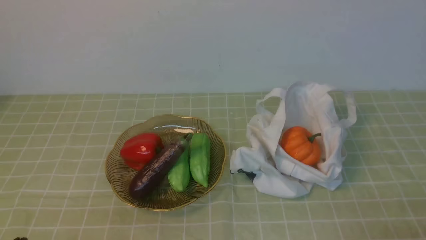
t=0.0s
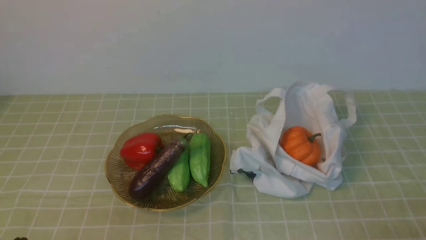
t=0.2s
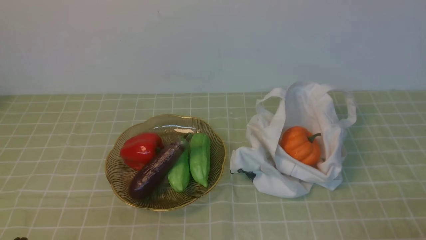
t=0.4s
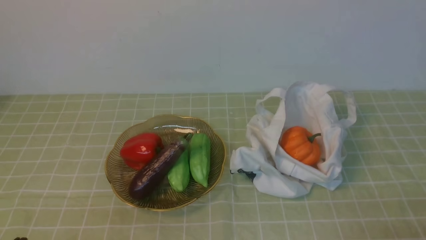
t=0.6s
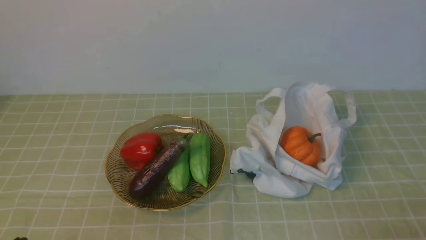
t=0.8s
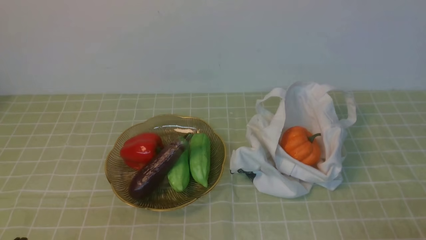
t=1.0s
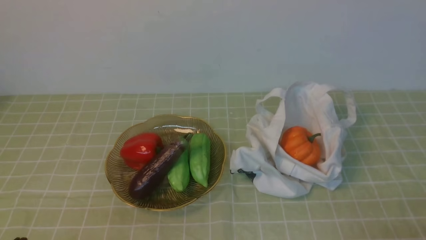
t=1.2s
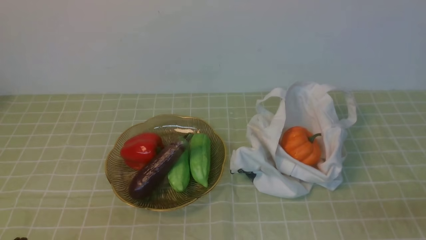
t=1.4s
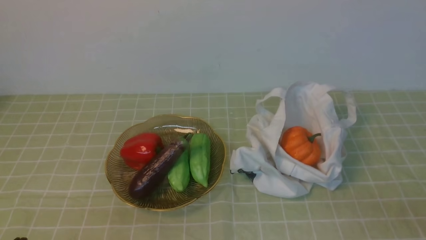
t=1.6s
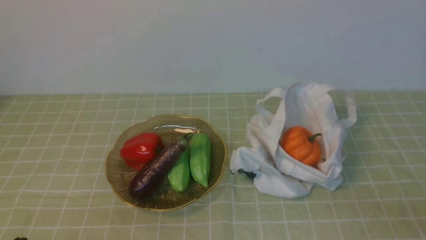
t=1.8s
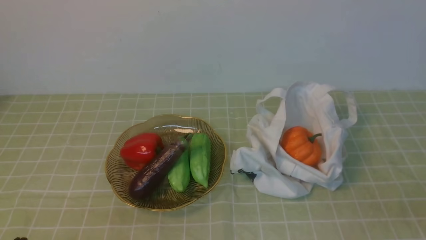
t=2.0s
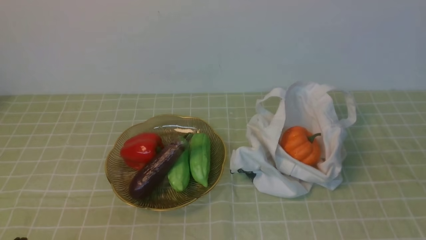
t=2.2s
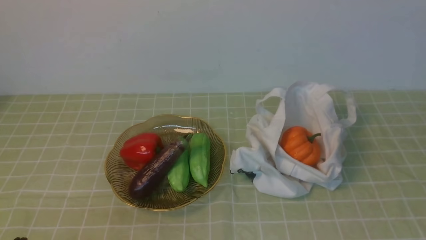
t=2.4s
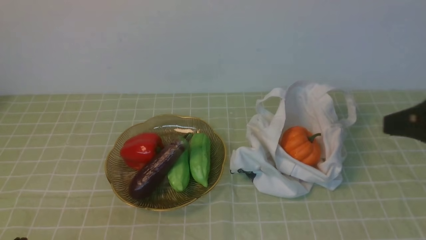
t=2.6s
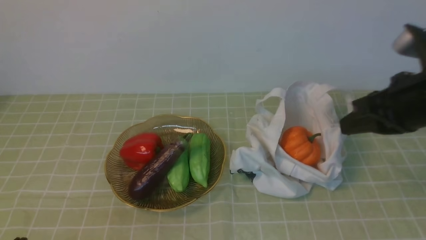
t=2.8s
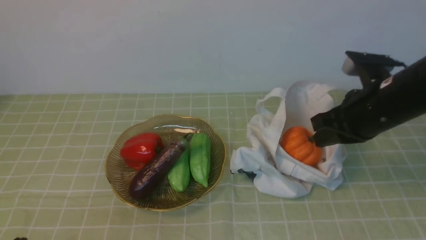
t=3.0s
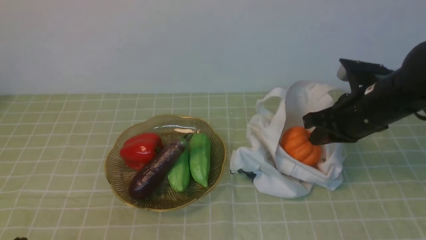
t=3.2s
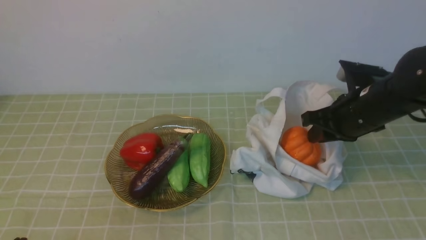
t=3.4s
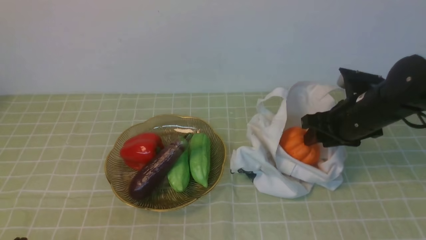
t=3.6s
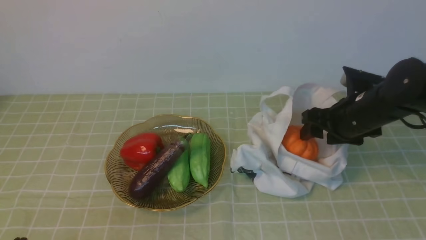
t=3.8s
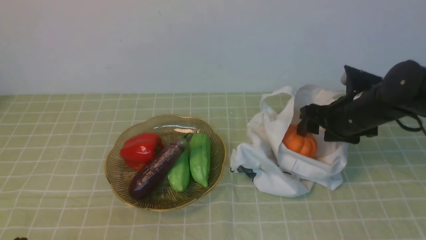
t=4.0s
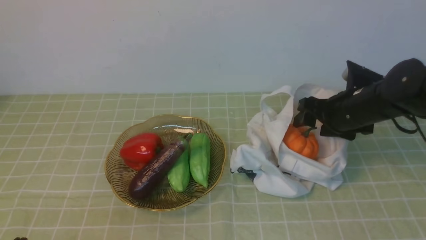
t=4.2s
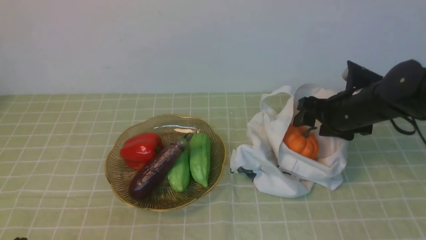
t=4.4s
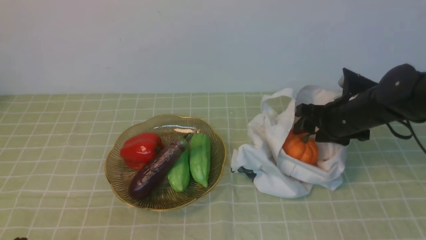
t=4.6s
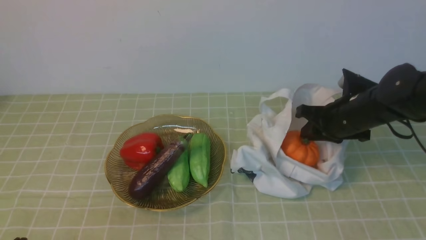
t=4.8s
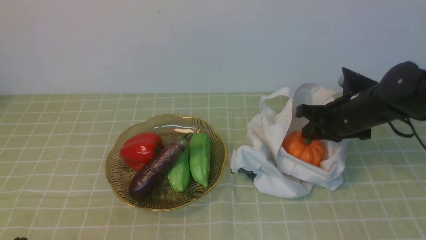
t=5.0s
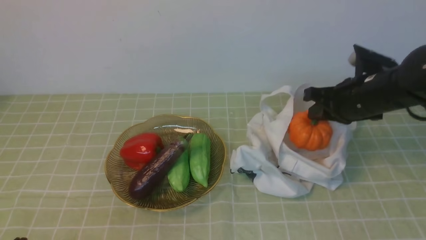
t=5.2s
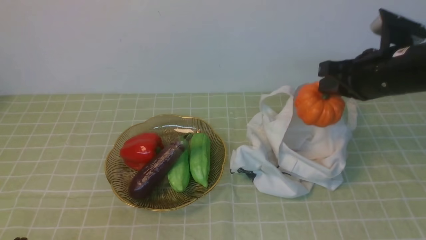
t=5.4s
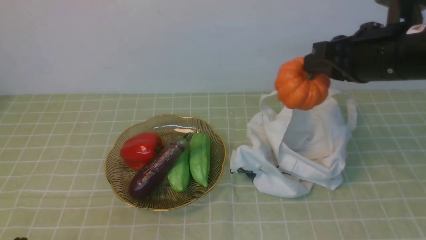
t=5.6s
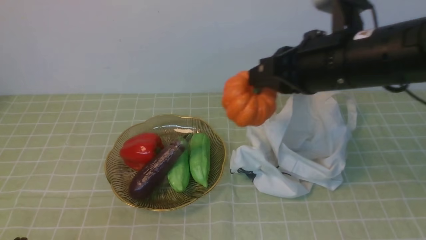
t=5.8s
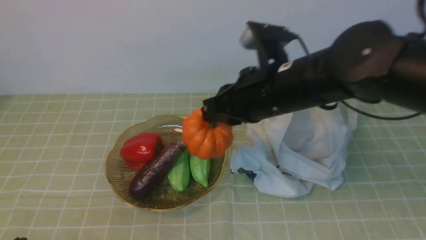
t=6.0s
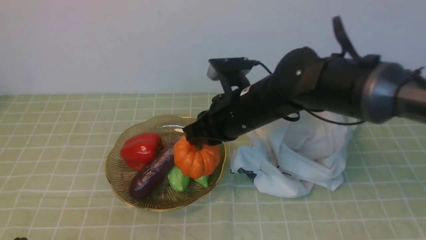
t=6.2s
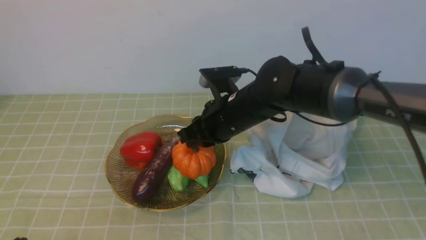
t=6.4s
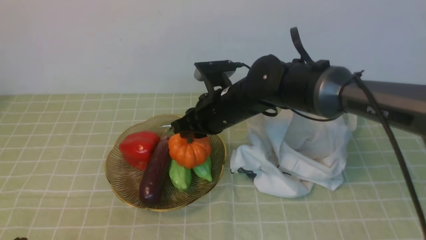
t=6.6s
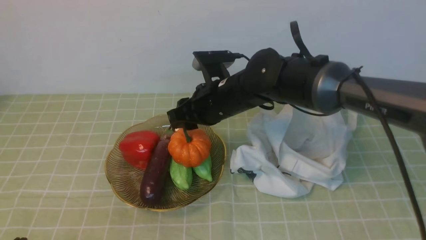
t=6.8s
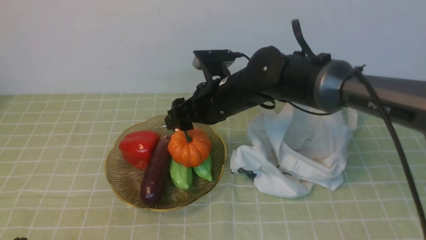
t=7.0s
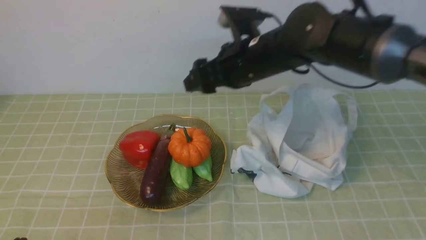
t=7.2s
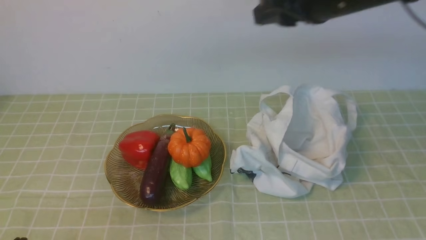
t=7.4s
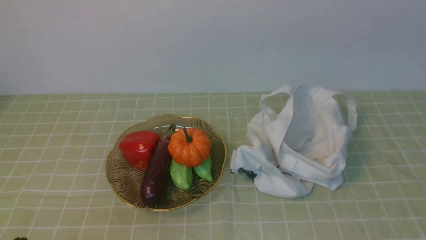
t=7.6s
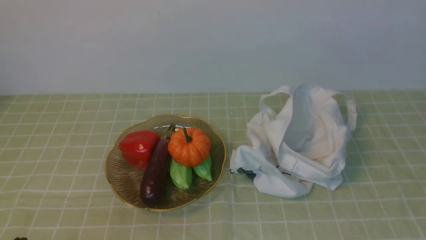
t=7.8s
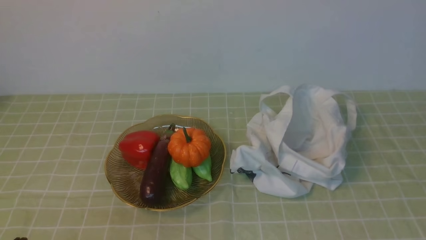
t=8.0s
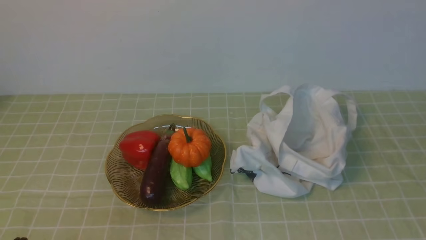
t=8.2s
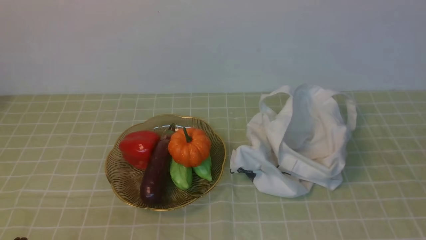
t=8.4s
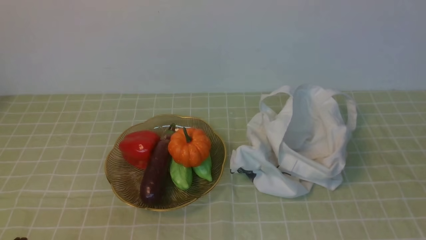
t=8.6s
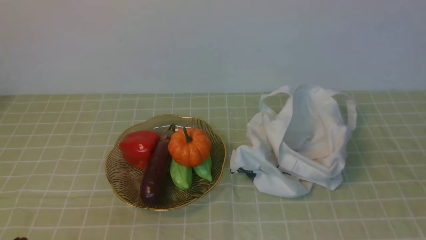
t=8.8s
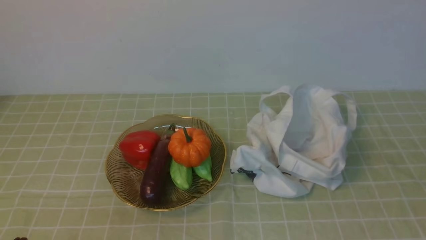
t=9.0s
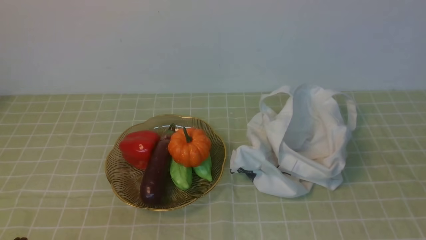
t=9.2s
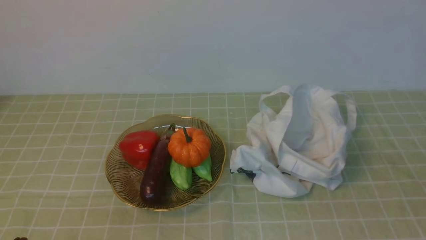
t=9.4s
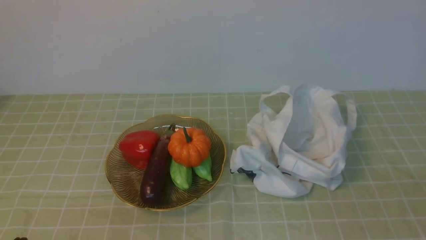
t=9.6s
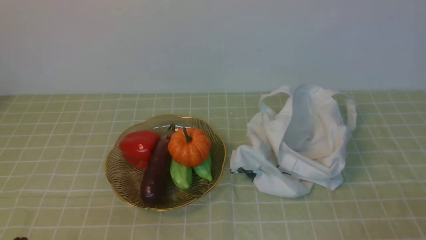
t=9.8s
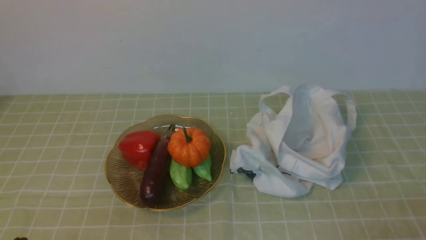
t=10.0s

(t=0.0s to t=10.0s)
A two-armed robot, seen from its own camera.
Task of the whole recording: take vegetables from bag on green coffee tablecloth place on plate.
Step, t=0.0s - t=4.8s: Grasp the pumpkin with right gripper.
Step, t=5.0s - t=7.0s: Place the pumpkin on the plate with right gripper.
t=1.4s - t=2.8s: The right gripper moves forward and upward, approximately 25 cm.
t=2.8s - t=4.2s: The right gripper moves downward and forward, some 15 cm, and opens.
t=4.2s - t=5.8s: The right gripper shifts roughly 20 cm upward, to the left and backward, and closes its fingers.
t=5.8s - t=7.2s: The right gripper heads forward, covering some 5 cm, travels downward and back again, about 10 cm each way, and opens its fingers.
t=7.2s - t=8.6s: The right gripper is displaced backward and to the right by approximately 40 cm, and closes.

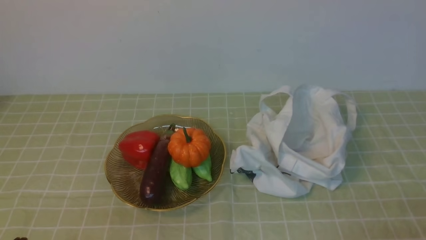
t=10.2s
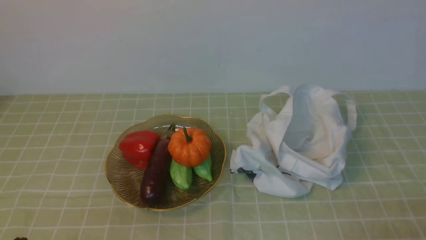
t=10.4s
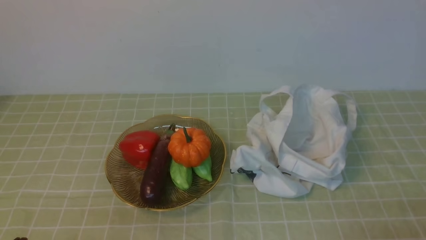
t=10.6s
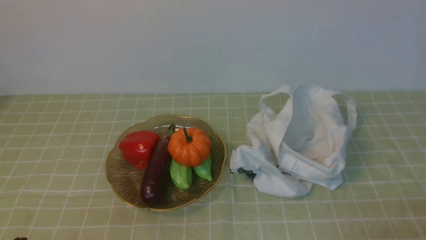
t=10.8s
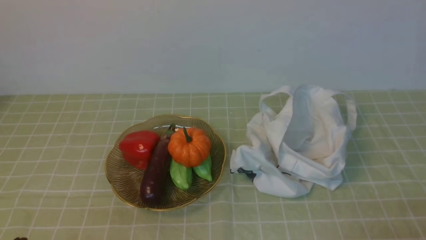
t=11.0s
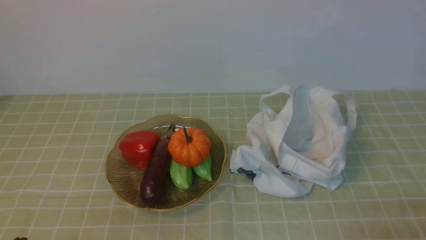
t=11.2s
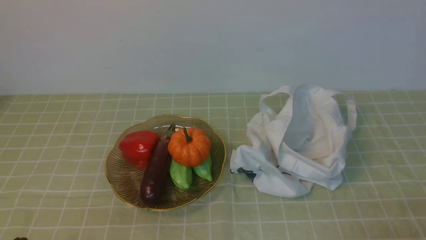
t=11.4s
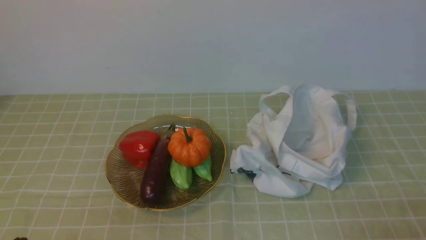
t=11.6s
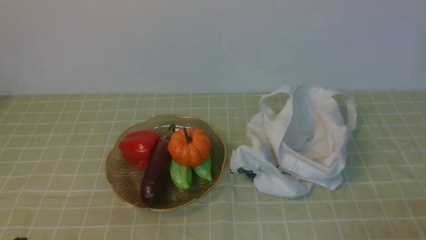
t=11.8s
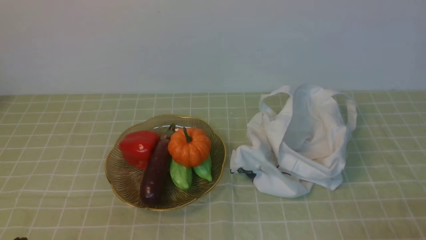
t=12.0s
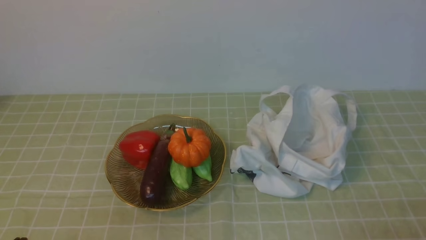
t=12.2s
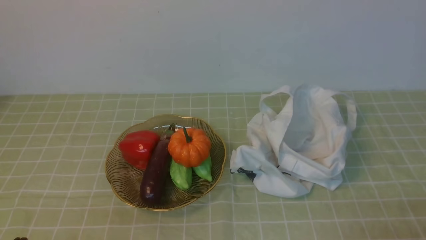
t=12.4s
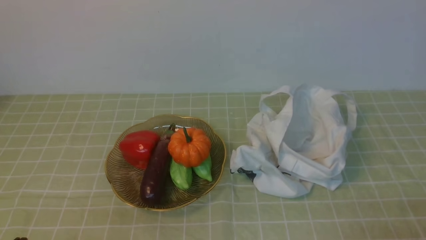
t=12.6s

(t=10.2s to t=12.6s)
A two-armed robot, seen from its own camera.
Task of the whole recording: take vegetables from bag on green coffee tablecloth place on plate.
t=11.4s - t=12.6s: Both grippers stay put.

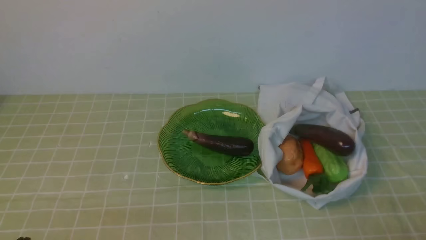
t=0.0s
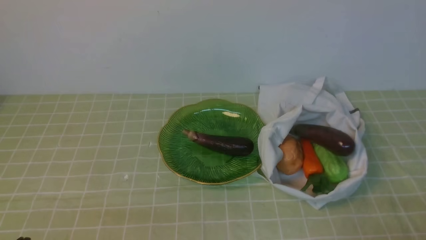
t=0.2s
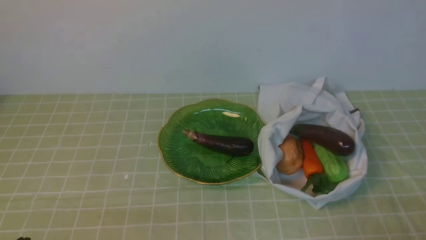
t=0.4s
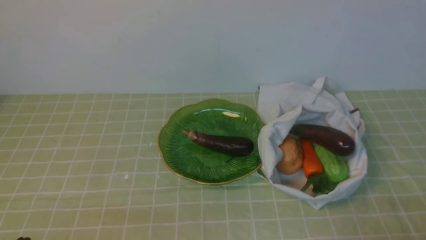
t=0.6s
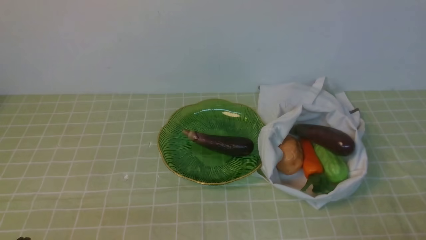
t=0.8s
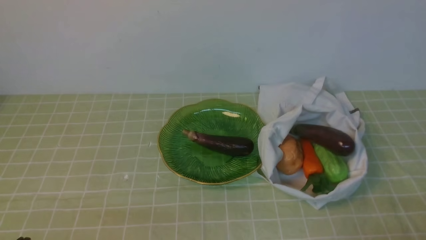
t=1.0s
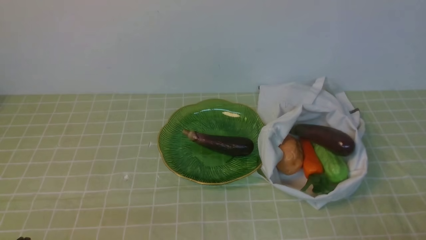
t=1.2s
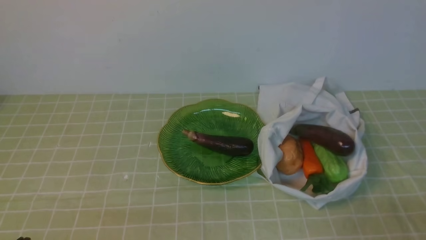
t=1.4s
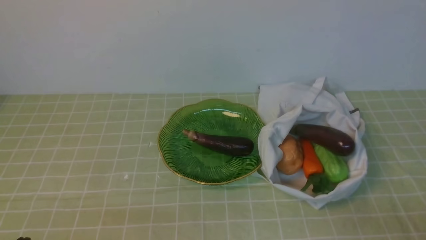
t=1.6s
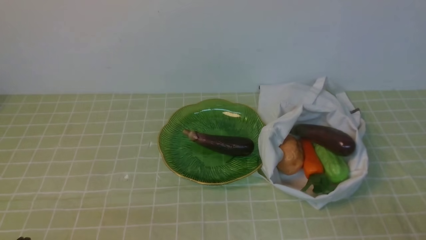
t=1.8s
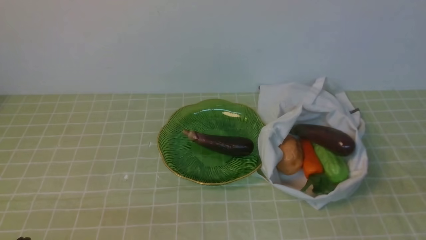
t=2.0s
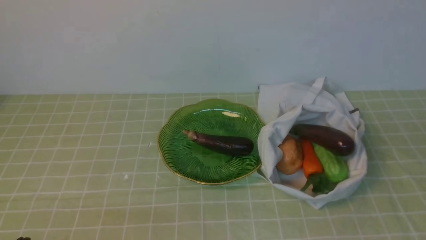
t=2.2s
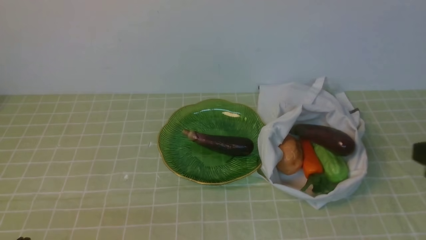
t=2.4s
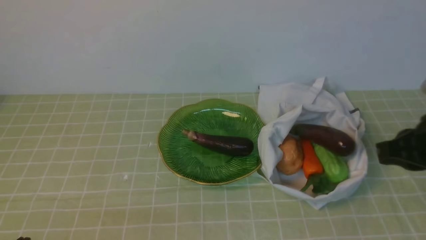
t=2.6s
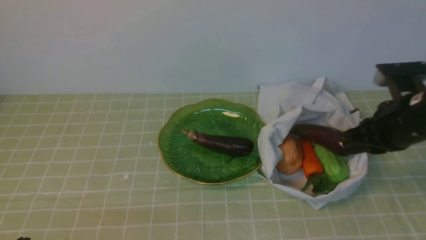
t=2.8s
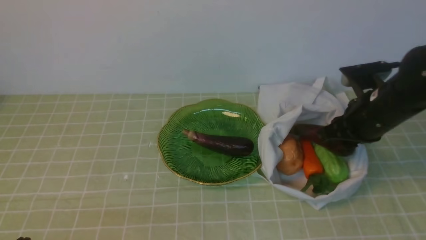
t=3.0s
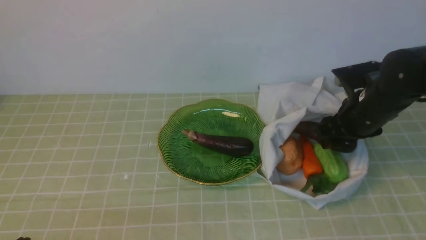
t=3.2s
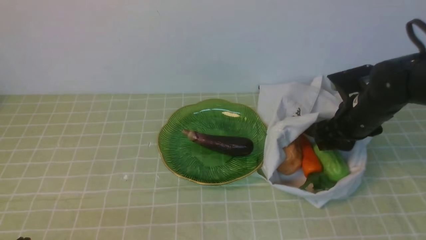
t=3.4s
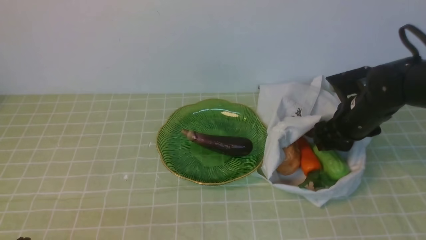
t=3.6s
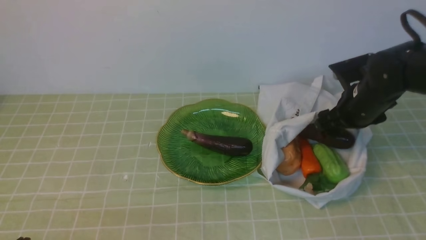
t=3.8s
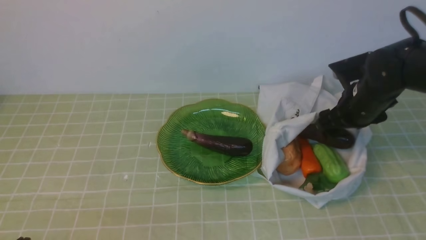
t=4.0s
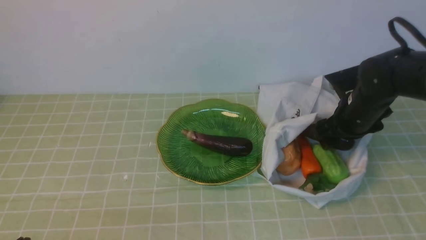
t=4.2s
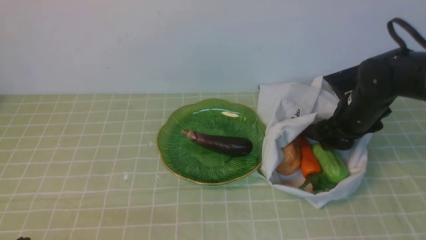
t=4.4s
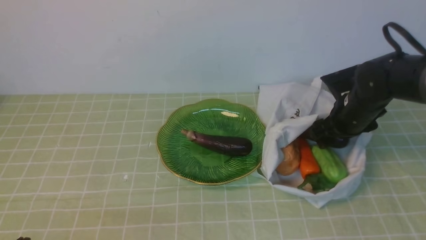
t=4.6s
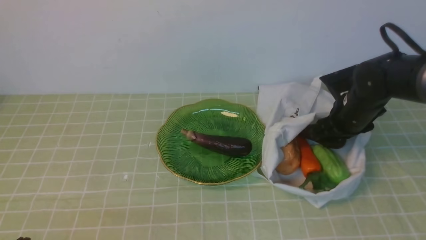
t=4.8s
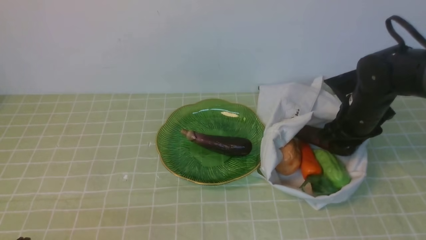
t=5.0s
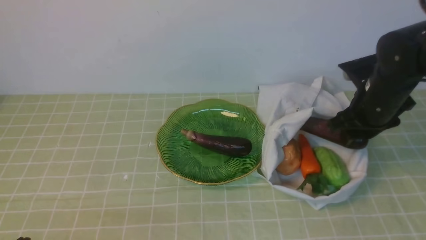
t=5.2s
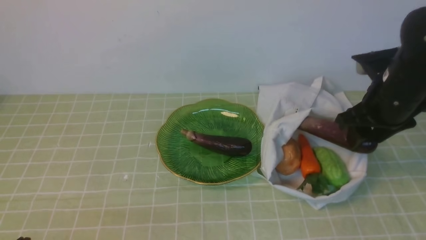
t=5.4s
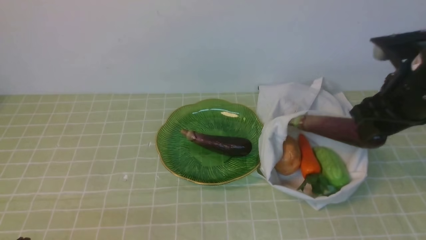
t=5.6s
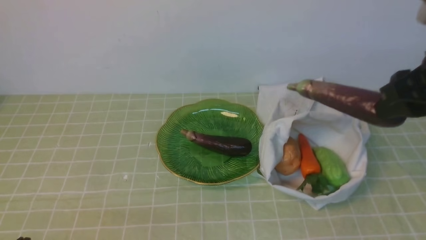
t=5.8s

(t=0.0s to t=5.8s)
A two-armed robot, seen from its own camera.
Task of the whole recording: take vegetables from bag on green coffee tablecloth place on plate.
Step, t=0.0s - t=4.6s: Grasp the eggplant with right gripper.
t=1.4s - t=2.8s: The right gripper shifts about 25 cm forward.
t=2.8s - t=4.4s: The right gripper shifts approximately 10 cm forward and downward, and opens.
t=4.4s - t=5.8s: The right gripper is displaced upward and backward by about 25 cm, and closes up.
